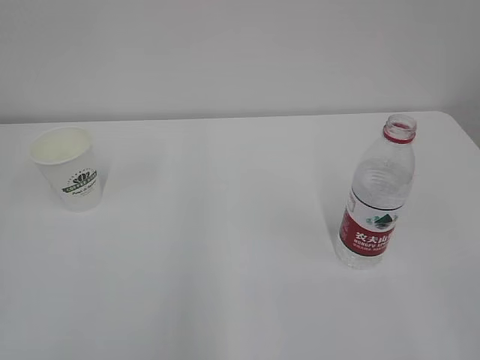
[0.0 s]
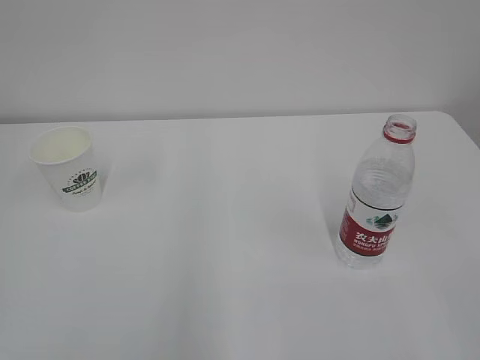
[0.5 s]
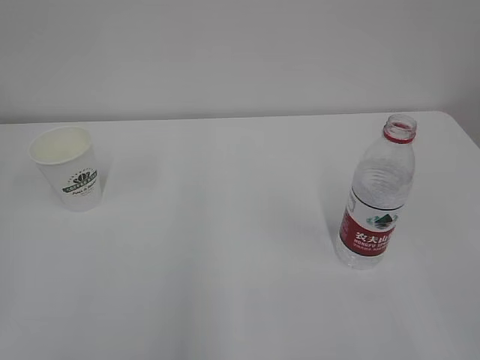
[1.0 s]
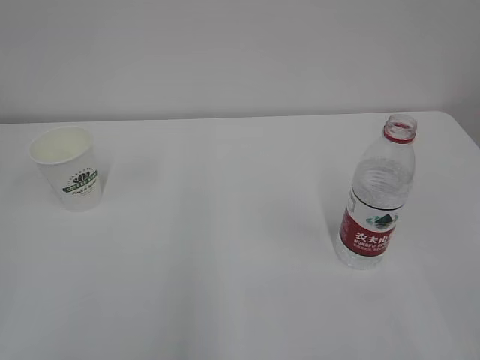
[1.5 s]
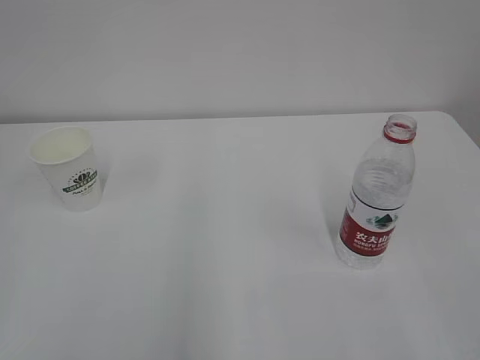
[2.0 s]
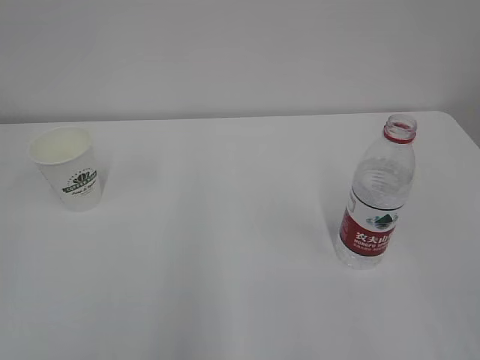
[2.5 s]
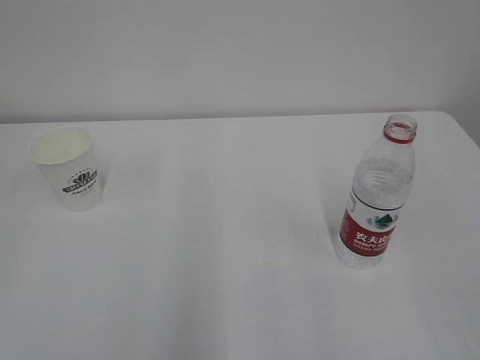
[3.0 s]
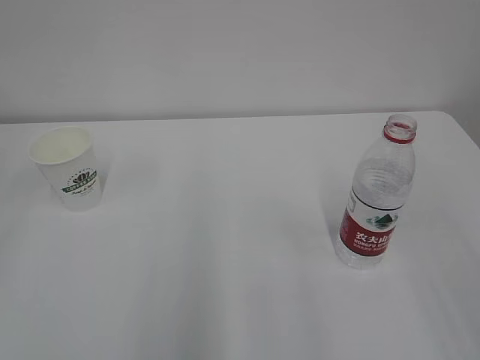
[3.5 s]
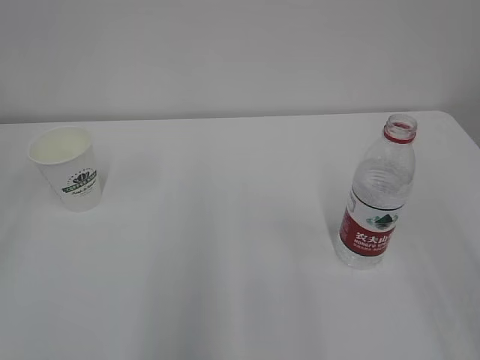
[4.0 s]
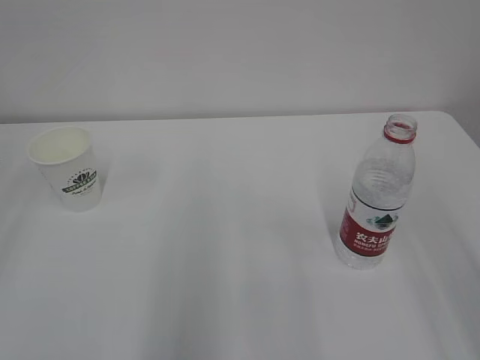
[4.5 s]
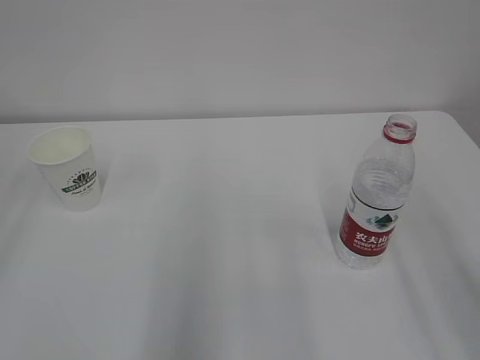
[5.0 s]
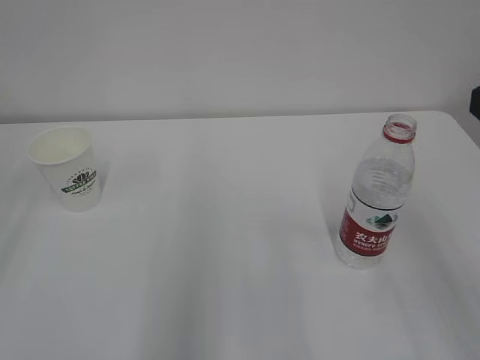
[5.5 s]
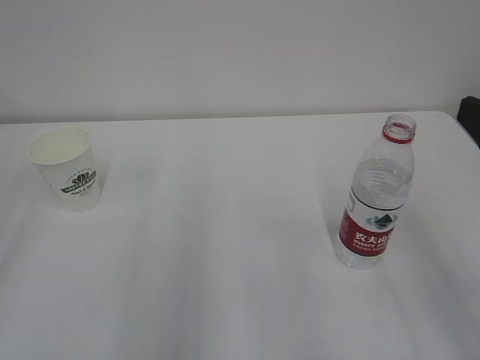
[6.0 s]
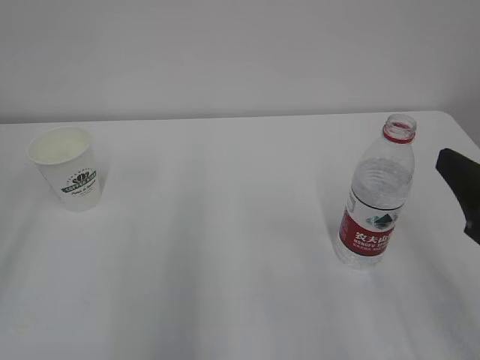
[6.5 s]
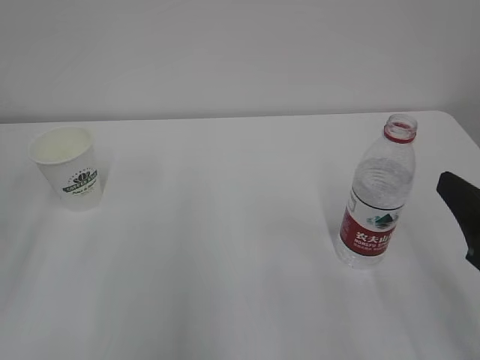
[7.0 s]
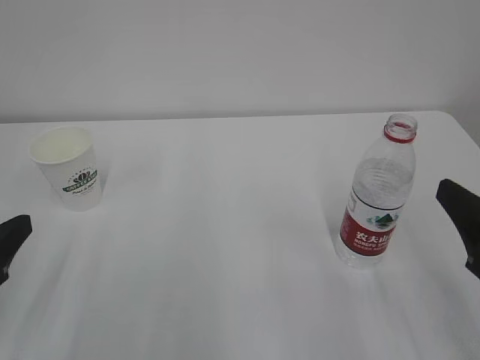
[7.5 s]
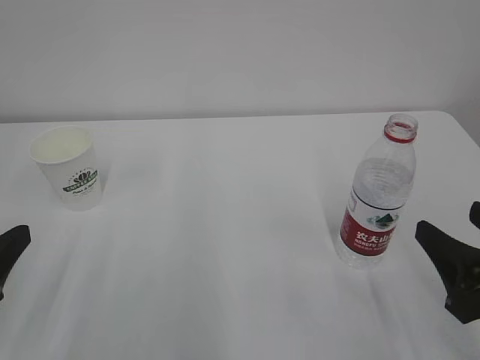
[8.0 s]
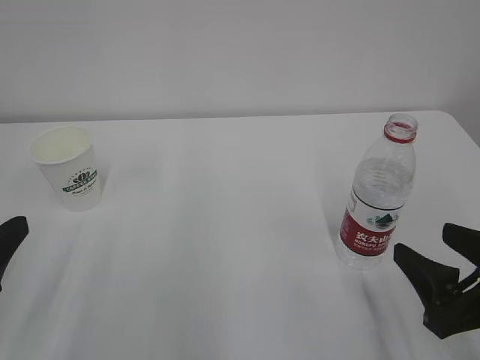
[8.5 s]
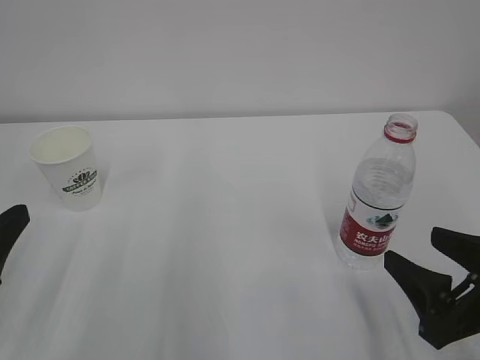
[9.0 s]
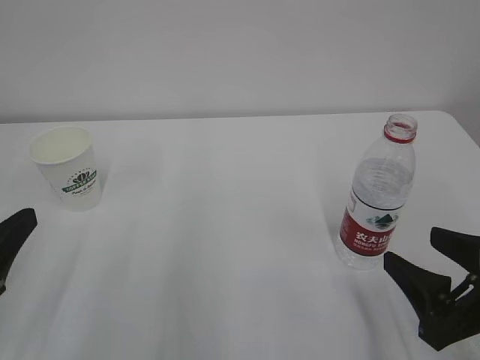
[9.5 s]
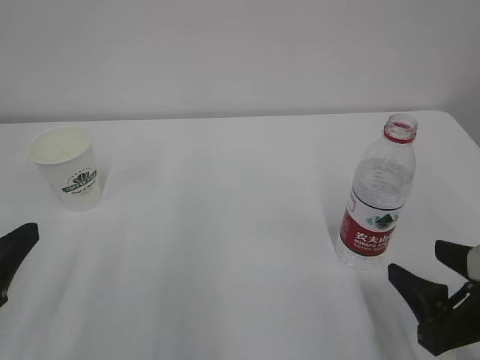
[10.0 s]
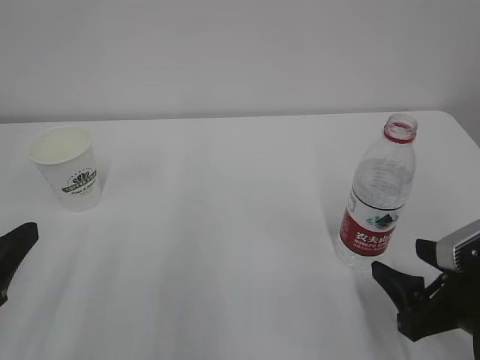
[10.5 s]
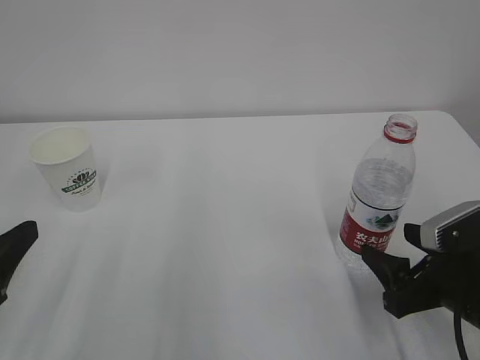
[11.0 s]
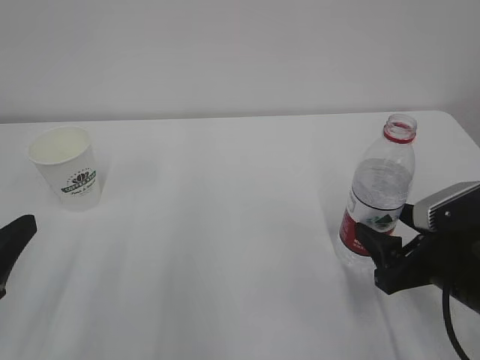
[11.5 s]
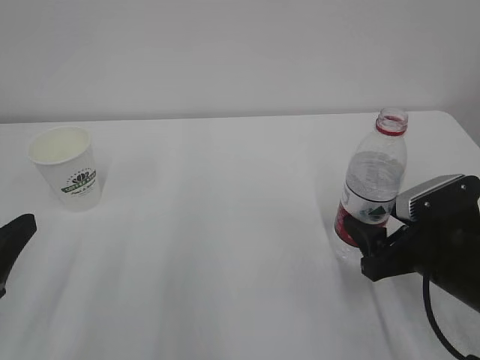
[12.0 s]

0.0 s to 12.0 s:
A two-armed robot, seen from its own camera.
6.0 to 8.0 s: The two grippers go about 10 cm downward.
8.0 to 10.0 s: The grippers make only small movements.
10.0 to 12.0 s: The right gripper heads forward, covering approximately 10 cm.

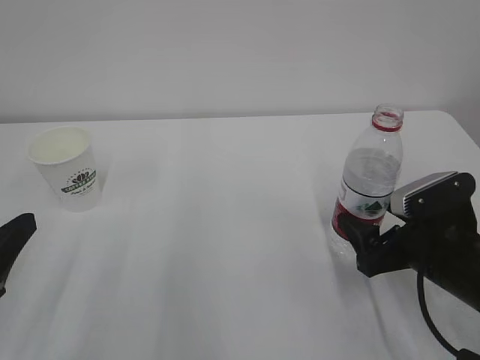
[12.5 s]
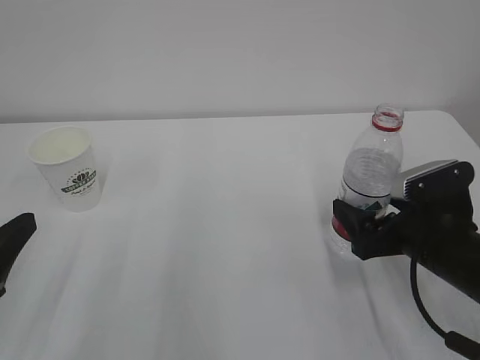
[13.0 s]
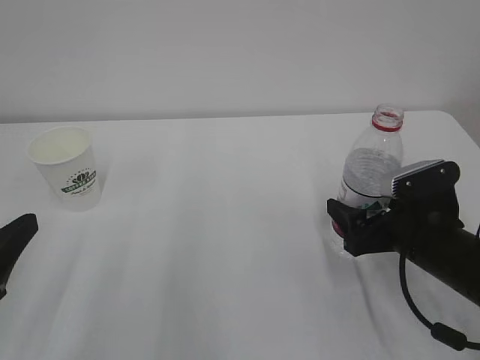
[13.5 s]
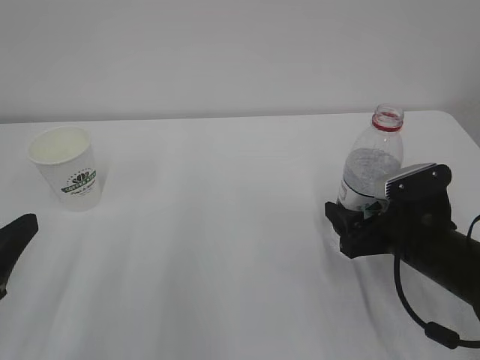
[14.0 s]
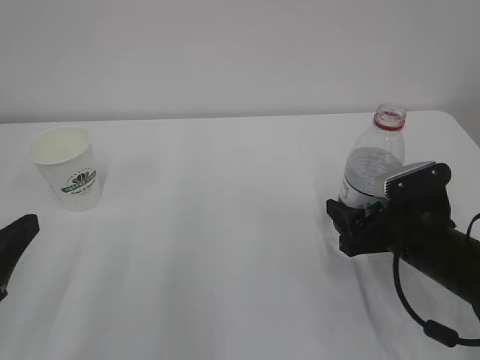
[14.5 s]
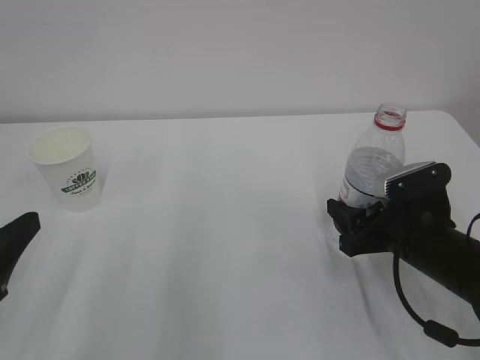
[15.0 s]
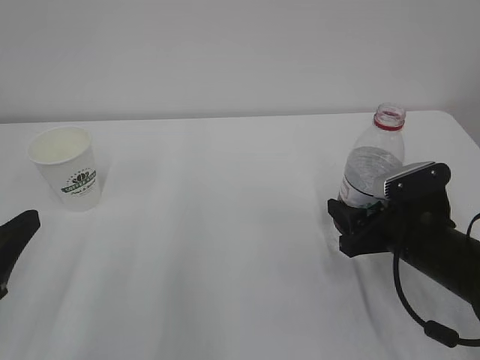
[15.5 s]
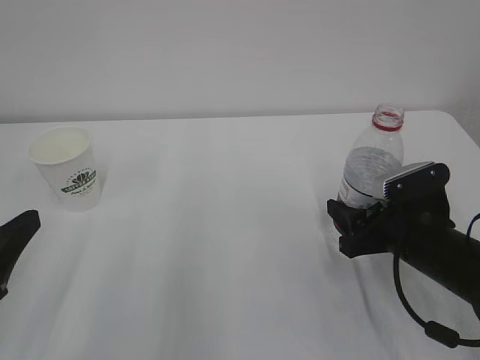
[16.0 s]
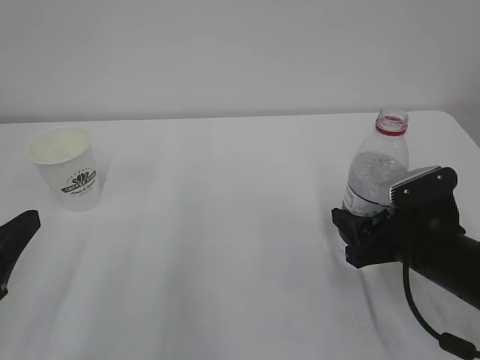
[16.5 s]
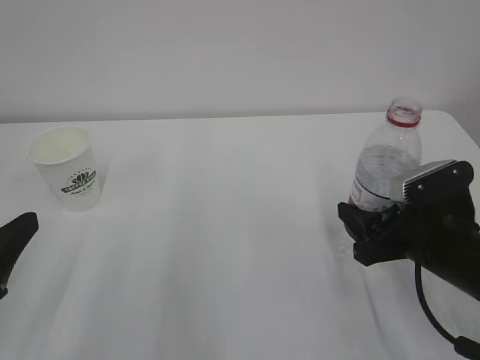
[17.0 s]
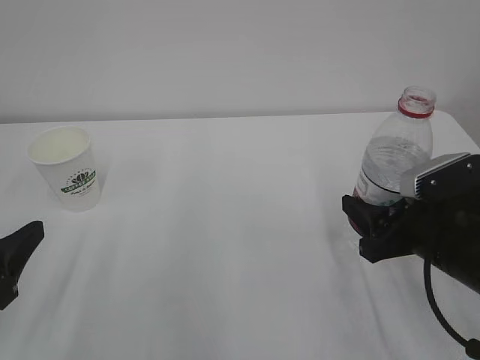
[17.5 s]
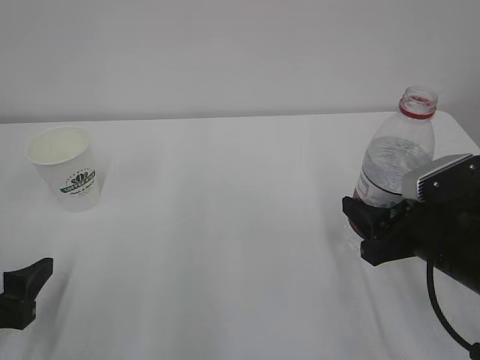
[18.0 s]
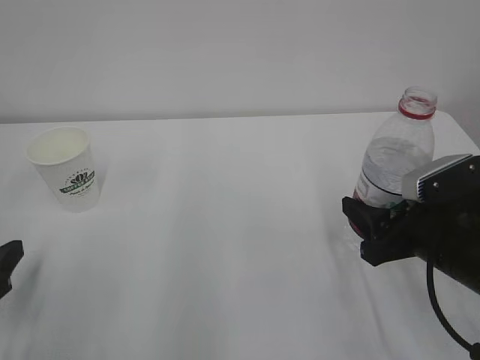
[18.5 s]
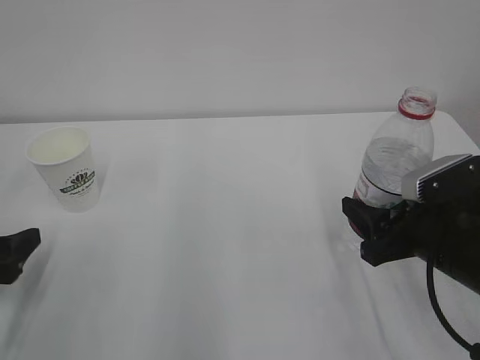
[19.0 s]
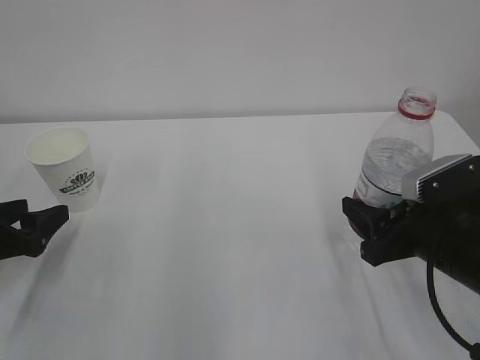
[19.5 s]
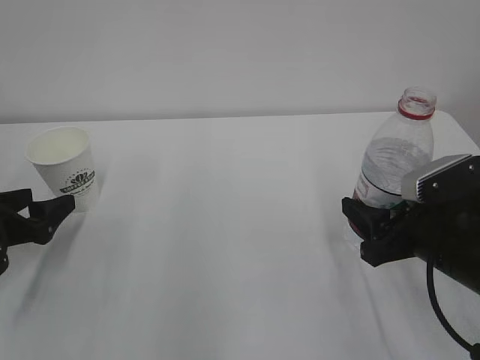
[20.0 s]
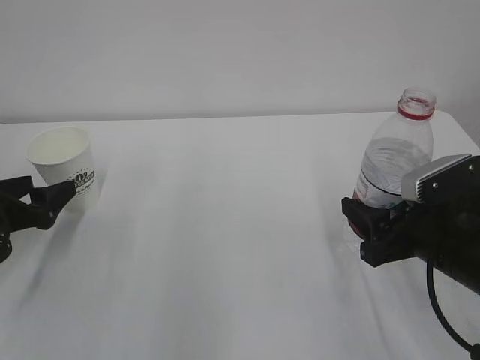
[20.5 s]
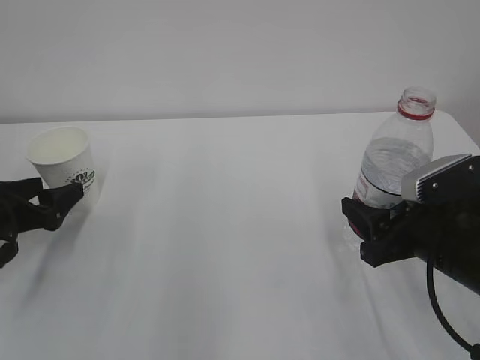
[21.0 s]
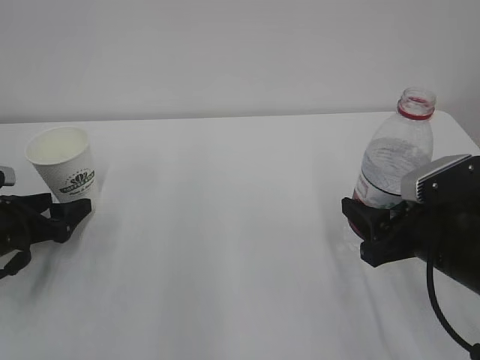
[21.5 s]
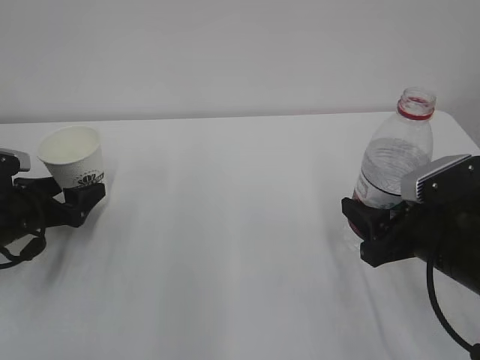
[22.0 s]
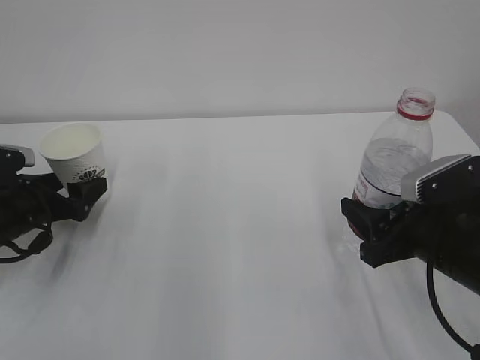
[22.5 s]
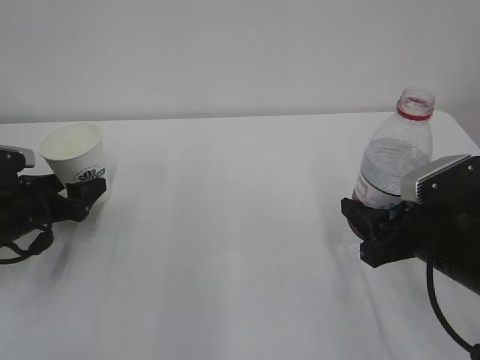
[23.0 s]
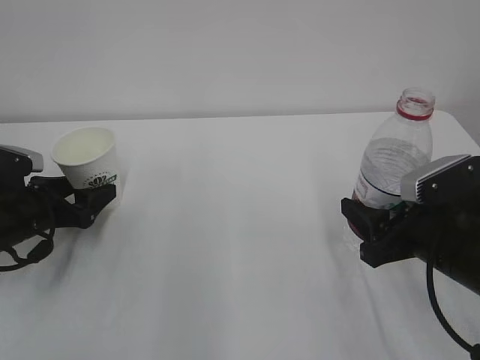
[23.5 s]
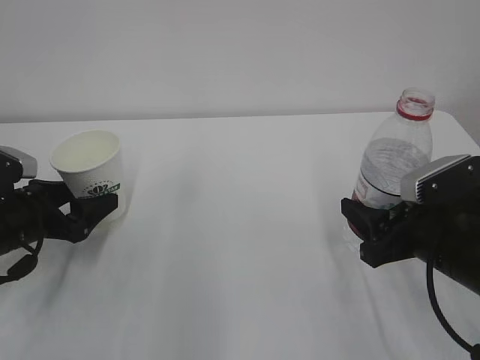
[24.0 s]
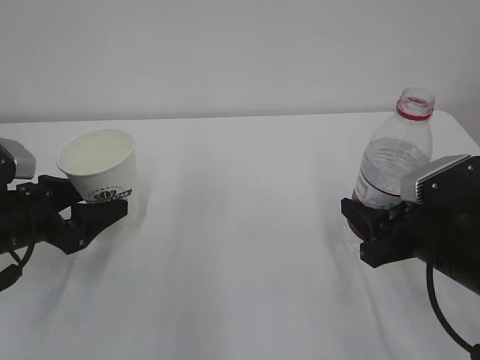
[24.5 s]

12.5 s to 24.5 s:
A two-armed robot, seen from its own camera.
12.5 to 14.5 s: The right gripper closes up.
14.5 to 16.5 s: The right gripper closes.
16.5 to 18.5 s: The left gripper travels downward by some 5 cm.
18.5 to 20.5 s: The left gripper moves forward, about 10 cm.
20.5 to 22.5 s: The left gripper shifts by some 5 cm.
22.5 to 24.5 s: The left gripper heads backward, covering some 5 cm.

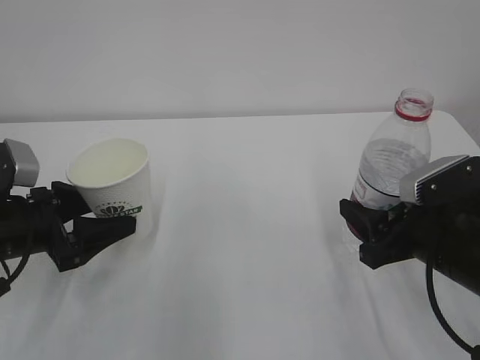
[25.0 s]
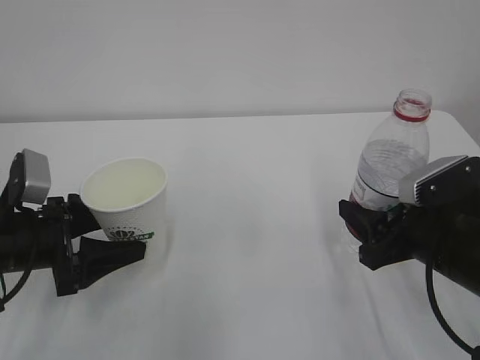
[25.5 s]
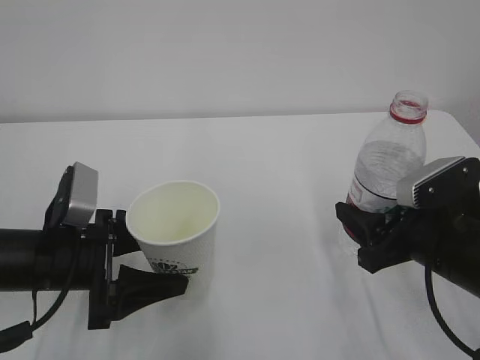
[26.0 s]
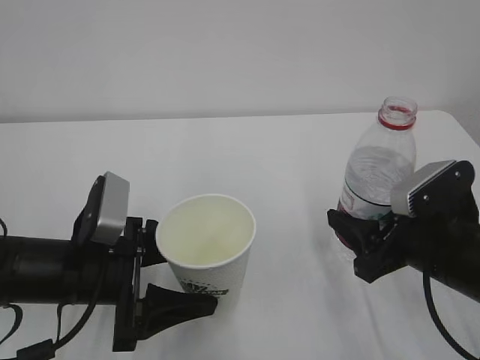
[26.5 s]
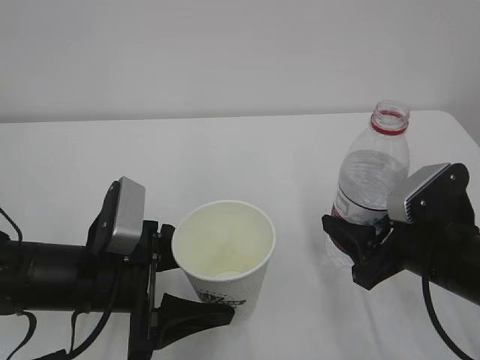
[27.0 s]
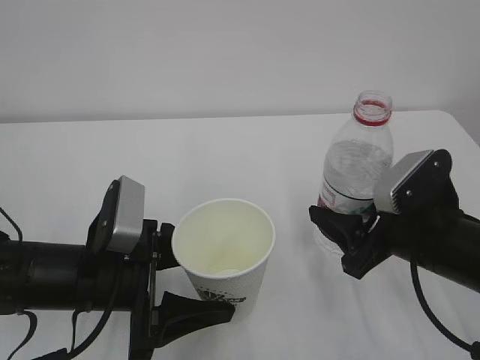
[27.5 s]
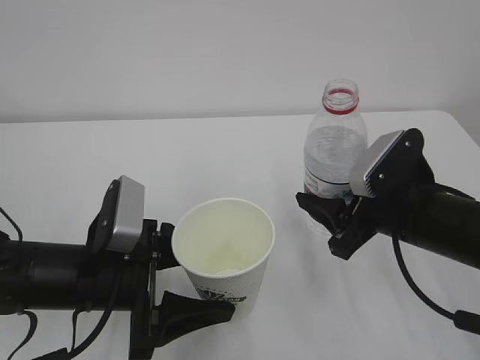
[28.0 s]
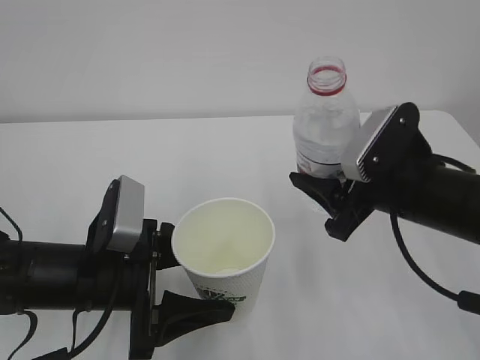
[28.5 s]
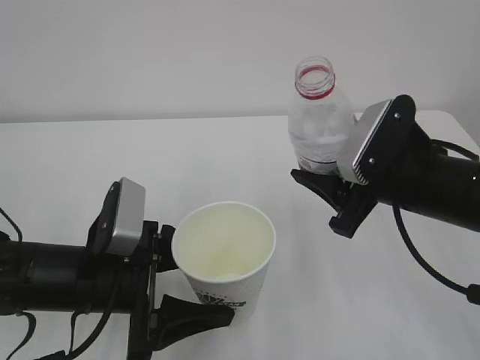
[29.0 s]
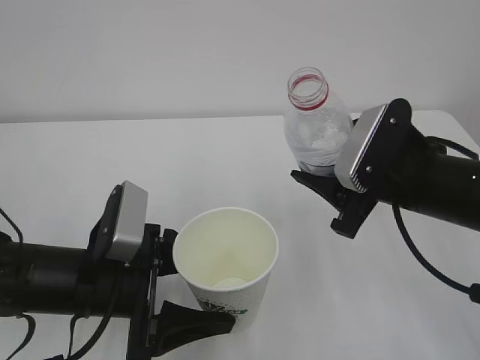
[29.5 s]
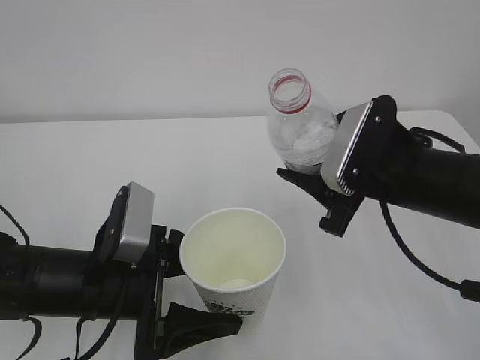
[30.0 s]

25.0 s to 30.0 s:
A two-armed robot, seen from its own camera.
25.0 to 27.5 s: The left gripper is displaced to the right and backward by about 15 cm.
27.5 to 30.0 s: The right gripper goes some 5 cm upward.
